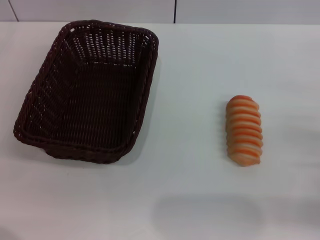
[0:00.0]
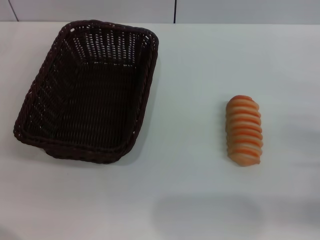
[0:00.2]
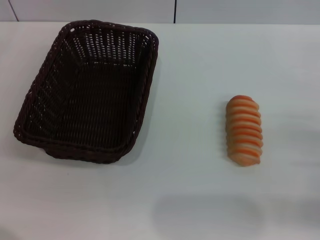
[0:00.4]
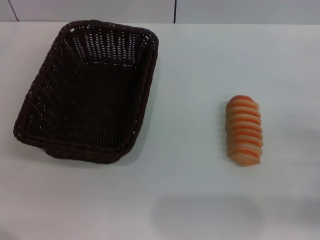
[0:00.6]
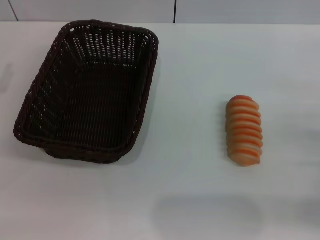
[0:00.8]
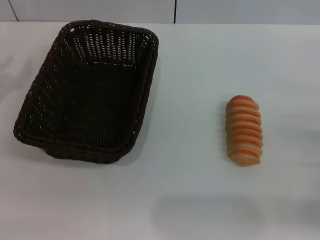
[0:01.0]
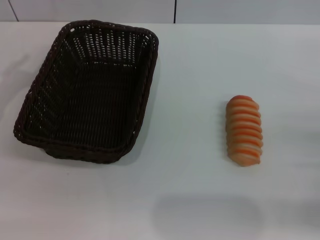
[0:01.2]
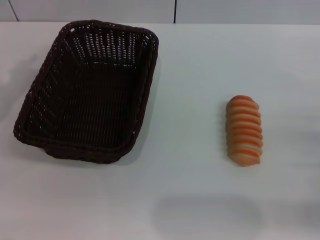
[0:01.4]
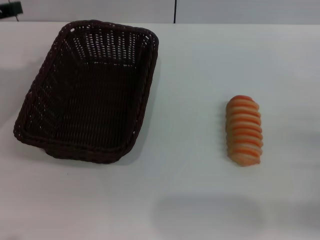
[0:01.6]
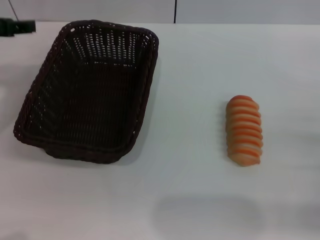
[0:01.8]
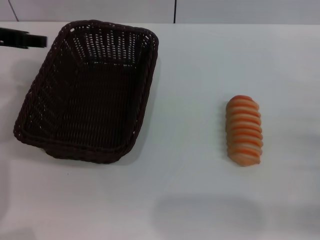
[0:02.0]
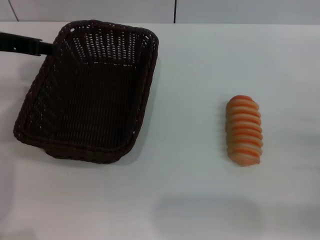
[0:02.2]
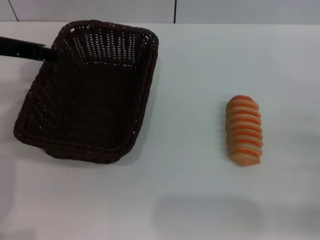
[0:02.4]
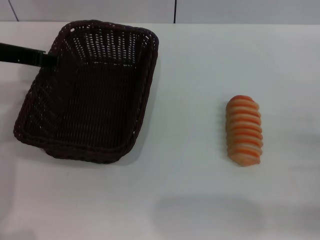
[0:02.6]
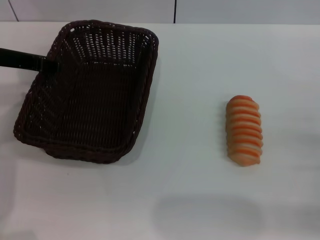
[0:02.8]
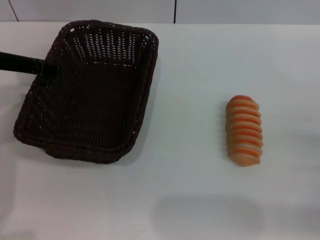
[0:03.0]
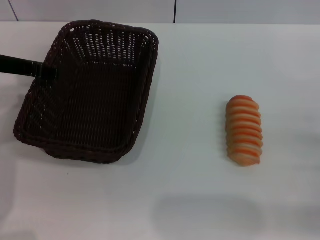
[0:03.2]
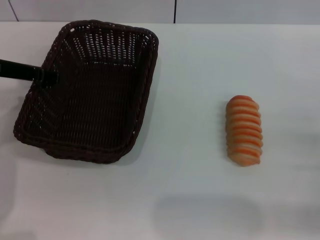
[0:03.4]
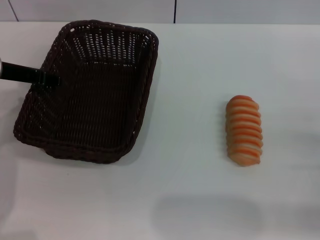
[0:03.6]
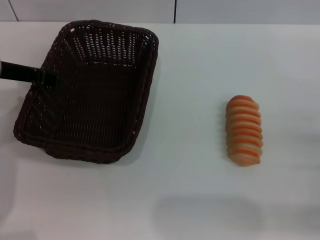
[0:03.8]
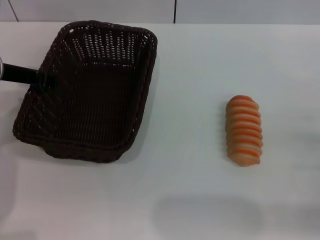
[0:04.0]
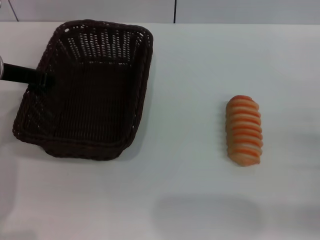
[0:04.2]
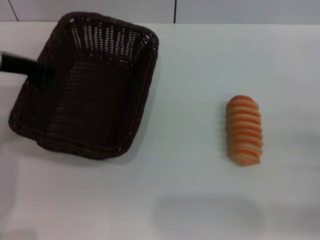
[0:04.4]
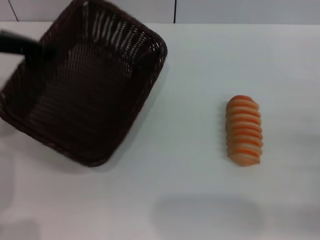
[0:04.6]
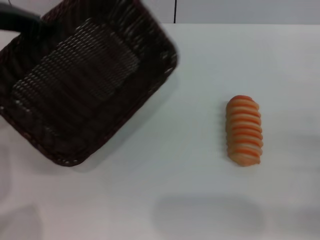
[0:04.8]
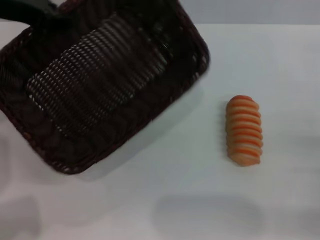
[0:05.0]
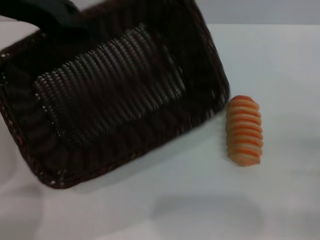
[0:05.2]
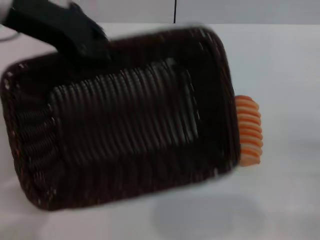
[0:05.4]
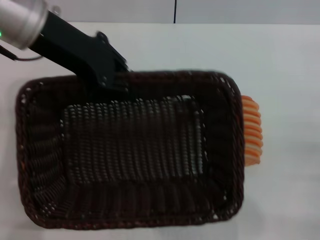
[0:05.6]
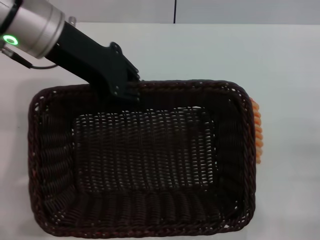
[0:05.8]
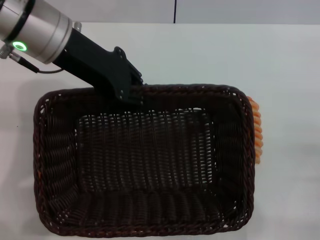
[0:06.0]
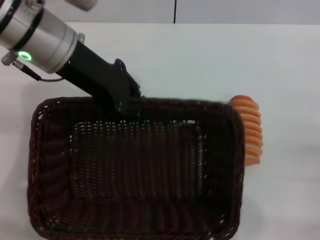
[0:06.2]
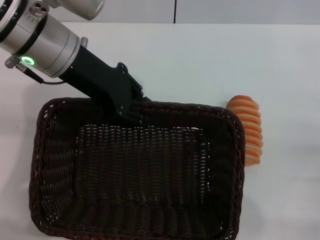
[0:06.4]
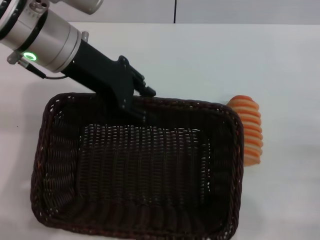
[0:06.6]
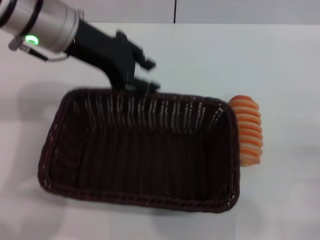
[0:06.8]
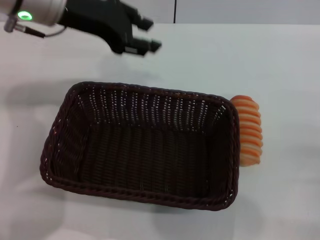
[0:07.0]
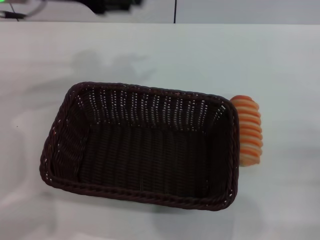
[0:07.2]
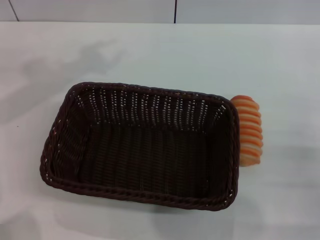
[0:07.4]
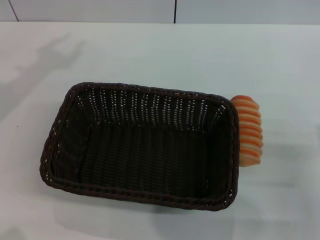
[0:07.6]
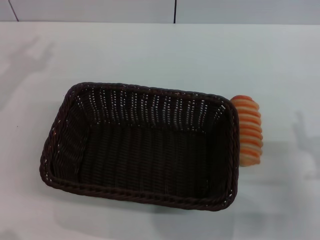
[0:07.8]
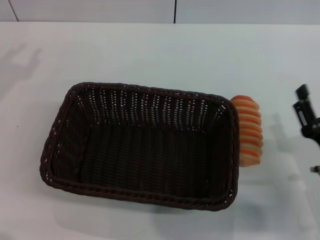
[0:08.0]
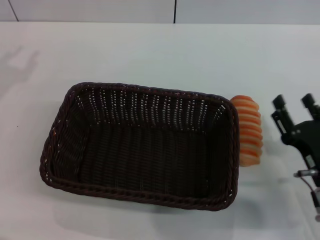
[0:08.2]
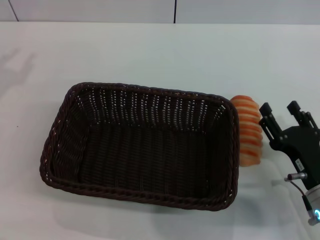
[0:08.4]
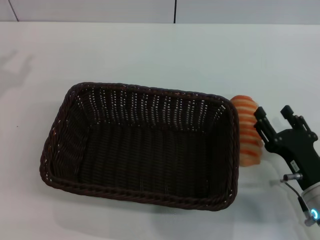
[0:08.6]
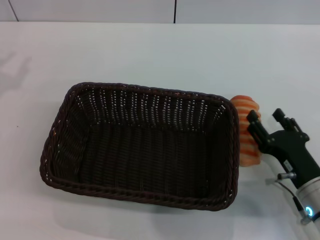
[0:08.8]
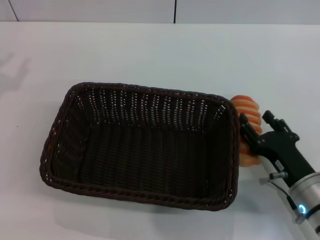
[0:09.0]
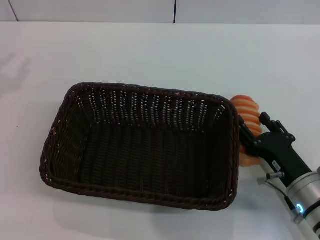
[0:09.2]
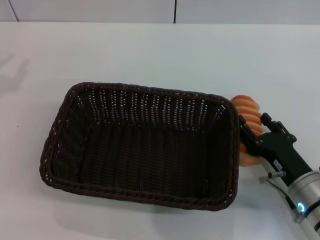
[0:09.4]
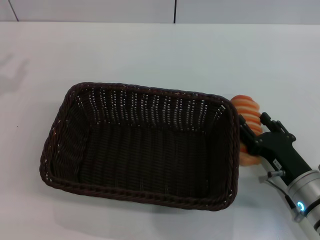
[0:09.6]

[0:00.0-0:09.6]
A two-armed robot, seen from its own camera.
Step, 0:00.0 to 0:03.8: Grasp the basket with the left gripper.
Step, 0:04.2 to 0:06.8: Place the basket in the center of the table with the left gripper.
0:00.0 to 0:01.6: The left gripper shifts some 15 cm upward and forward.
0:01.6 to 0:03.2: The left gripper moves to the right, approximately 5 cm.
0:03.2 to 0:04.8: The left gripper moves upward, approximately 5 cm, and closes up.
0:04.8 to 0:06.4: The left gripper goes roughly 10 cm to the right.
0:06.4 to 0:08.0: The right gripper heads to the left, covering roughly 10 cm. Meanwhile the left gripper moves to the left, about 20 cm, and opens up.
0:08.0 to 0:09.6: The right gripper moves some 5 cm.

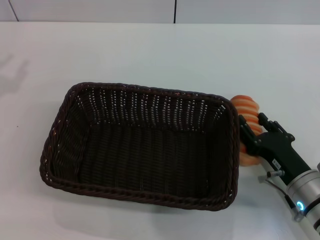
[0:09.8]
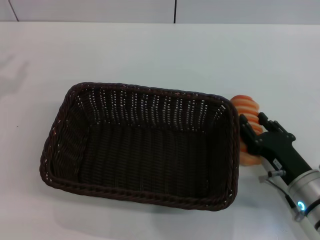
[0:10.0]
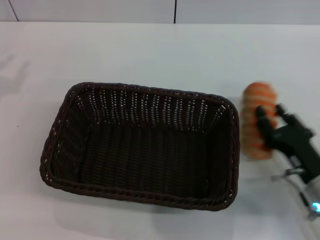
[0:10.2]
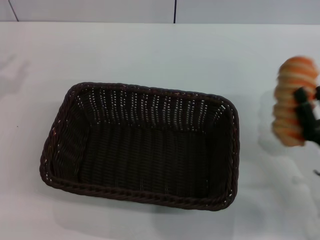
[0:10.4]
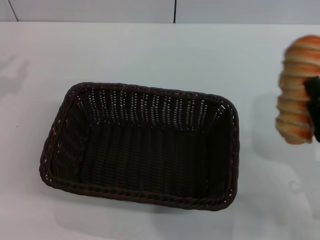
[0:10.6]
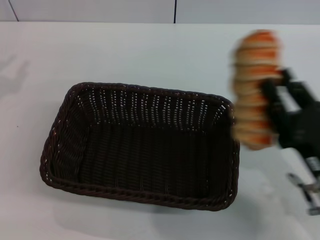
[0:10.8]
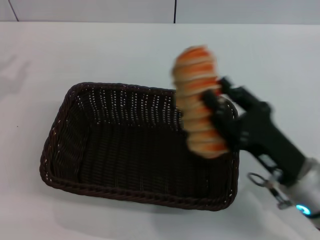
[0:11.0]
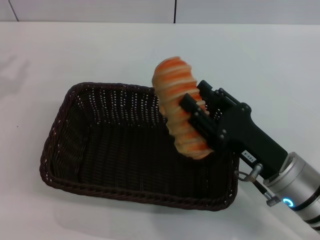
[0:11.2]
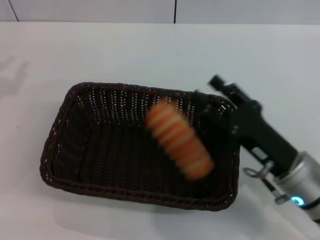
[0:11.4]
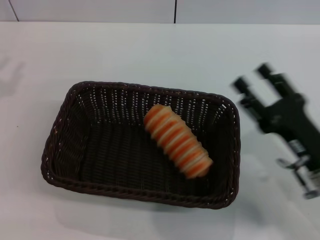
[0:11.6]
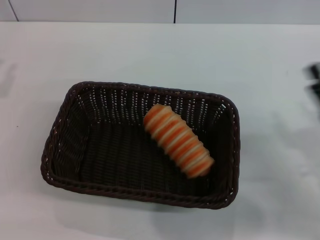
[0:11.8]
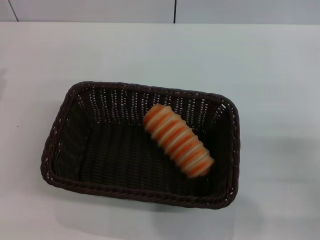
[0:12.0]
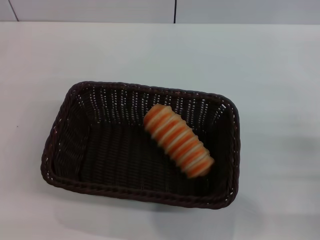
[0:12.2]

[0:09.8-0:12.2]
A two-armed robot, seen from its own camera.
Step, 0:10.2 to 0:11.6: Place the long bread in the basket with right gripper.
0:09.8 to 0:11.0: The right gripper moves upward, roughly 5 cm, and closes up.
0:11.0 to 0:12.2: The right gripper moves to the right, approximately 15 cm, and opens up. Meanwhile the left gripper goes approximately 10 cm downward.

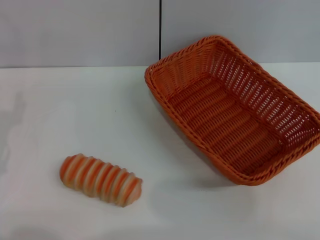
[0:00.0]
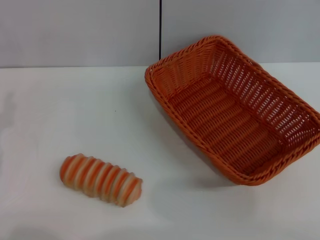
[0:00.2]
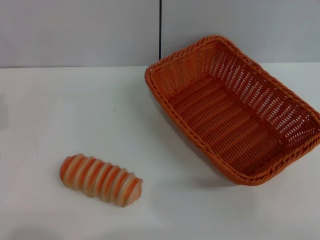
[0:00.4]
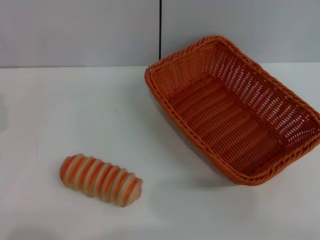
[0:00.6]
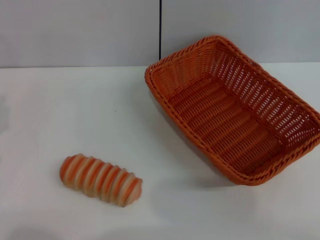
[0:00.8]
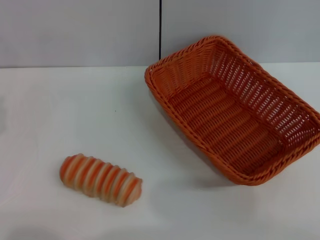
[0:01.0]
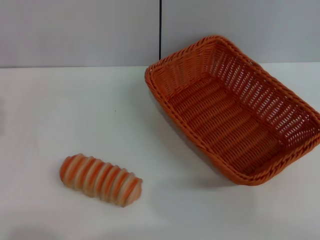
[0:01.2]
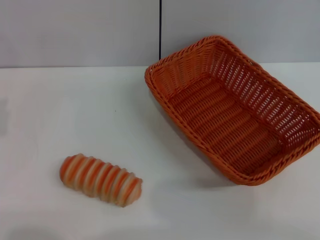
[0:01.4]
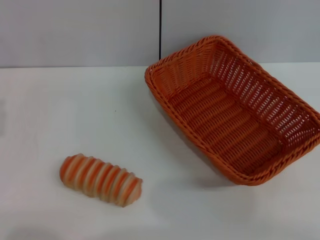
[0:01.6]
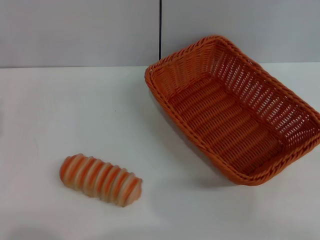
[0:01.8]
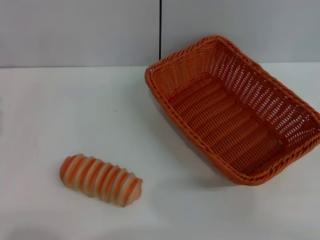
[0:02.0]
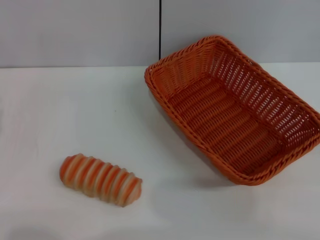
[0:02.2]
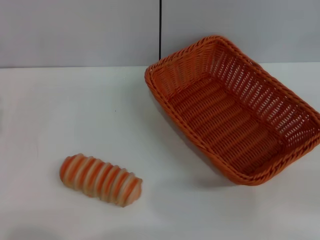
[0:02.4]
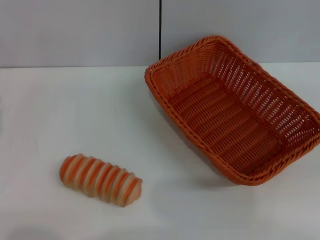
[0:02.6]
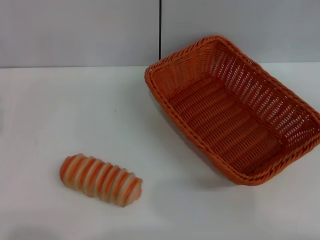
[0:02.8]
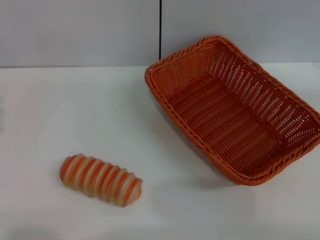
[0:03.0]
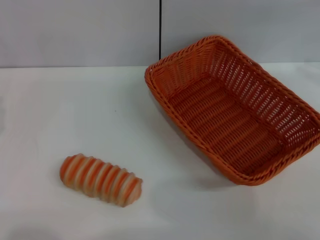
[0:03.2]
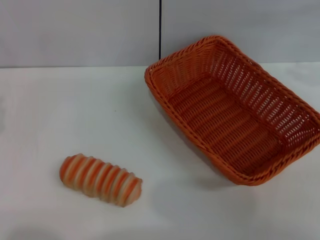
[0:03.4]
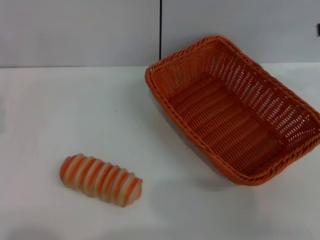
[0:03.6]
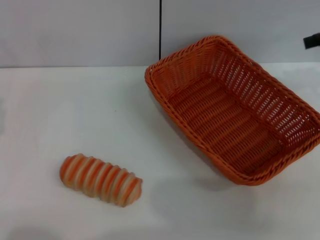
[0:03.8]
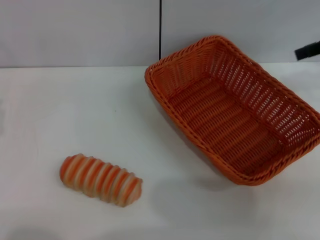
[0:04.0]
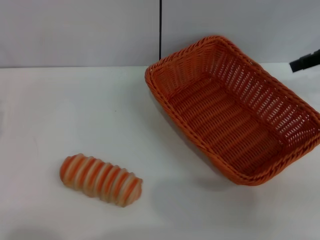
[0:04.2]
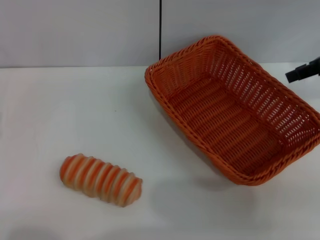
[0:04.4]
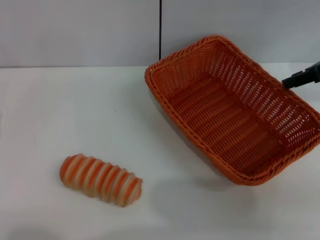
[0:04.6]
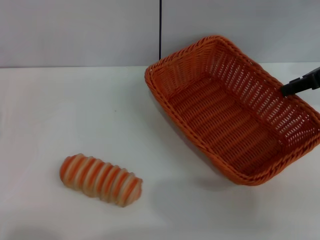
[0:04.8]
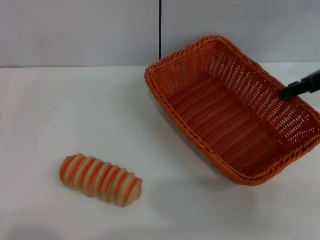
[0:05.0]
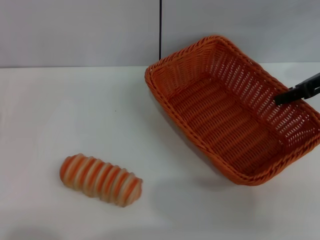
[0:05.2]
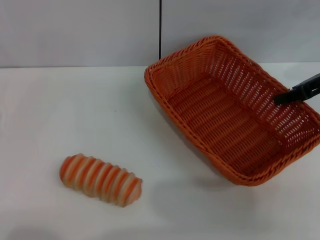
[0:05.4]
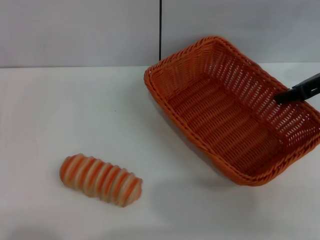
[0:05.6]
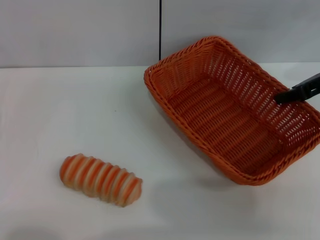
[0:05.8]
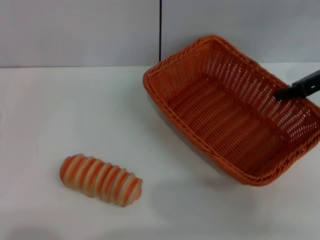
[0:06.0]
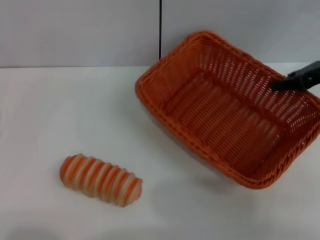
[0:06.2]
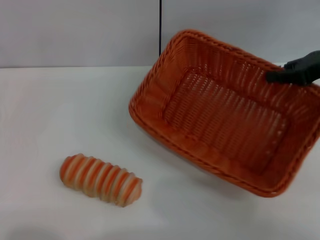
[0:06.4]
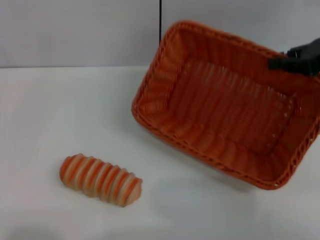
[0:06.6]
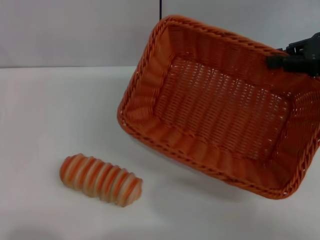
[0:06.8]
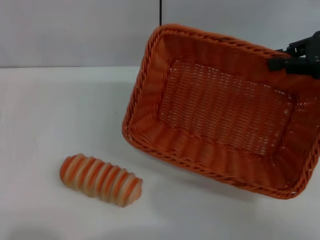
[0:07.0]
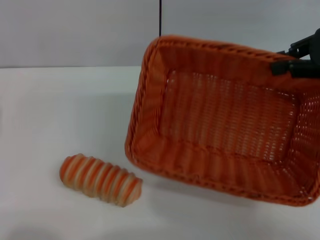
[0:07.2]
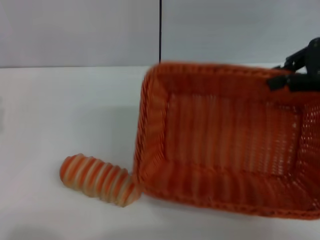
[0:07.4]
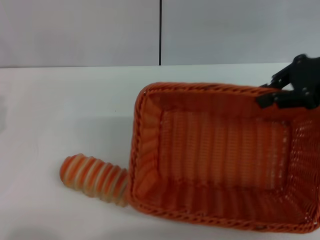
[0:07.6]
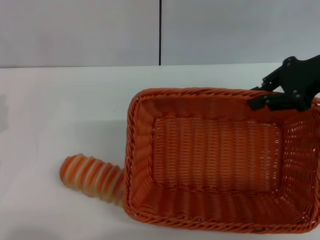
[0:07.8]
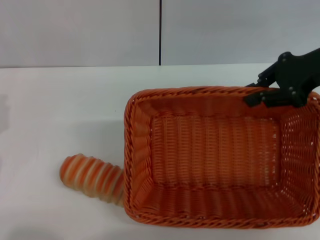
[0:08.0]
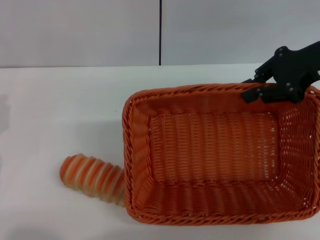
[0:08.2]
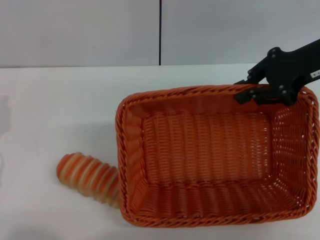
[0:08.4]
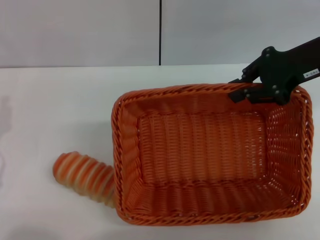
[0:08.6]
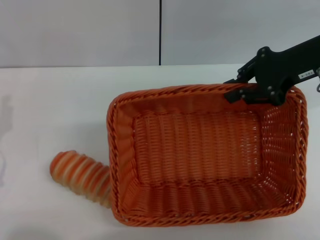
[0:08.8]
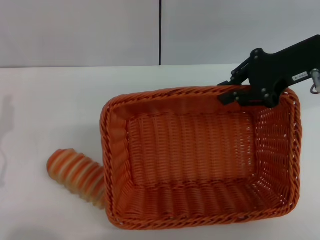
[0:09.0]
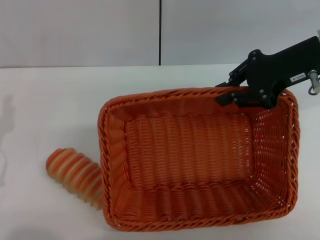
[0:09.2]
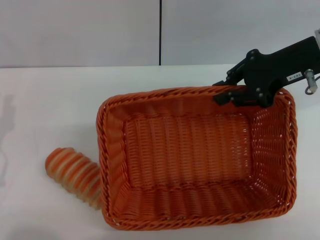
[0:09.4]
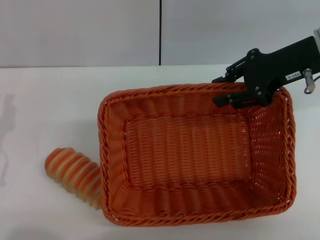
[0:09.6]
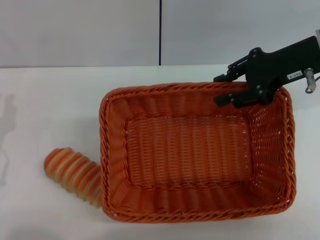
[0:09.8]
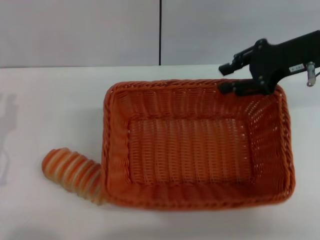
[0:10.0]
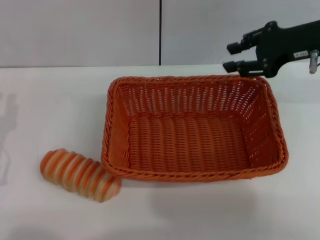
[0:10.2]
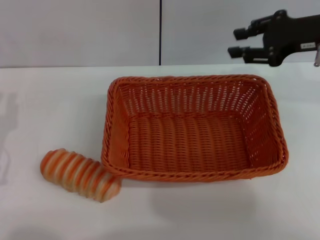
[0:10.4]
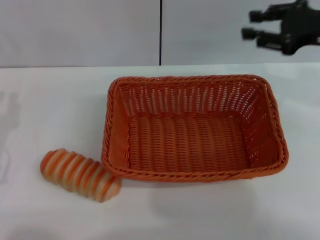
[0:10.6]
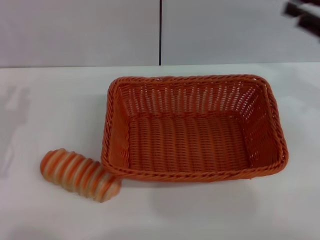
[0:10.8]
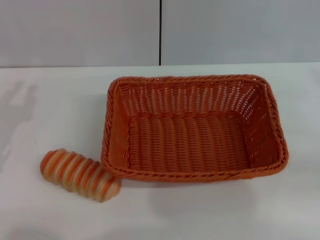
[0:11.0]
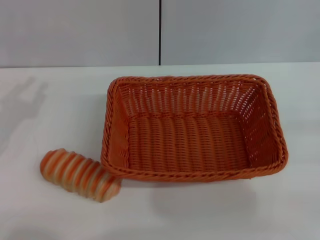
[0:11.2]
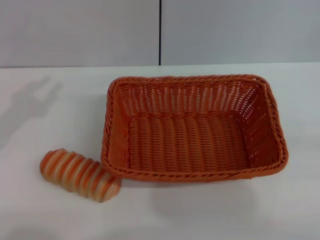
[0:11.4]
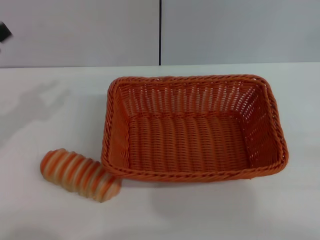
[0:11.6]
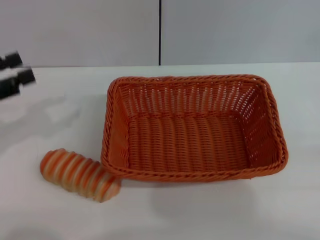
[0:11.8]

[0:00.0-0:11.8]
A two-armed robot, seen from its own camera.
Step, 0:00.0 to 0:06.6: Pick up the light basket with the right gripper.
Step, 0:06.8 to 0:10.0: Place the light basket in the center of view with the right gripper.
0:03.0 to 0:04.4: The right gripper goes about 15 cm to the left, forward and downward.
0:04.4 to 0:06.0: The right gripper closes.
0:06.0 to 0:07.4: The right gripper is displaced upward by some 5 cm.
0:07.4 to 0:08.8: The right gripper is displaced to the left by some 5 cm.
0:08.8 to 0:10.4: The right gripper opens up.
0:10.4 to 0:11.8: The left gripper is displaced upward, forward and to the left by some 10 cm. Meanwhile the right gripper goes some 30 cm backward, to the right and downward.
